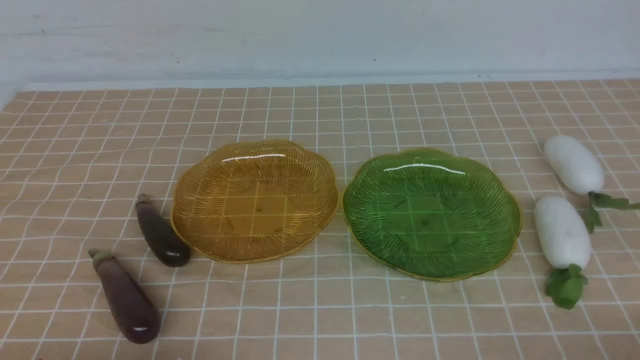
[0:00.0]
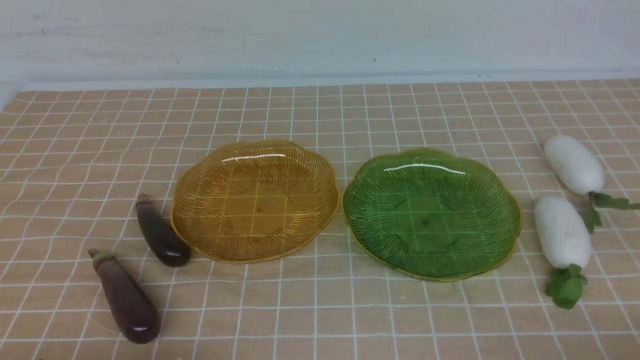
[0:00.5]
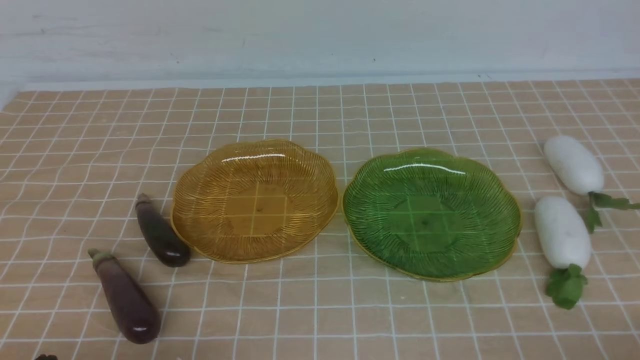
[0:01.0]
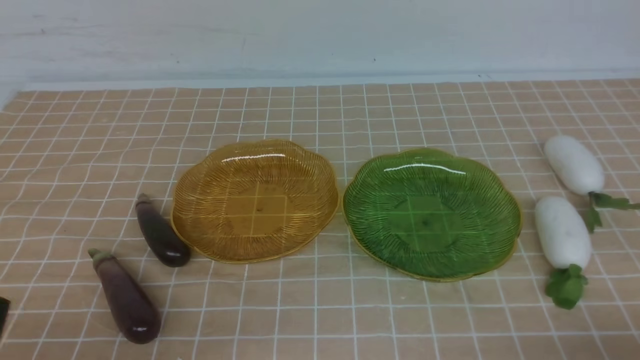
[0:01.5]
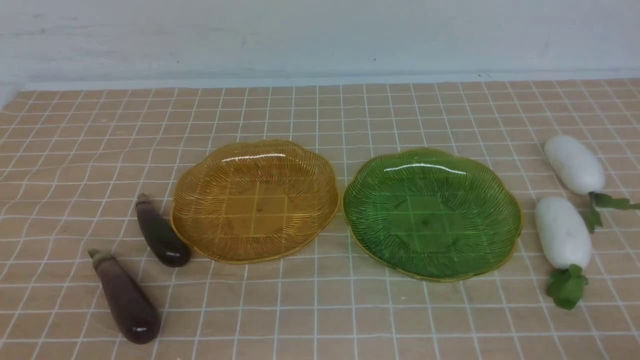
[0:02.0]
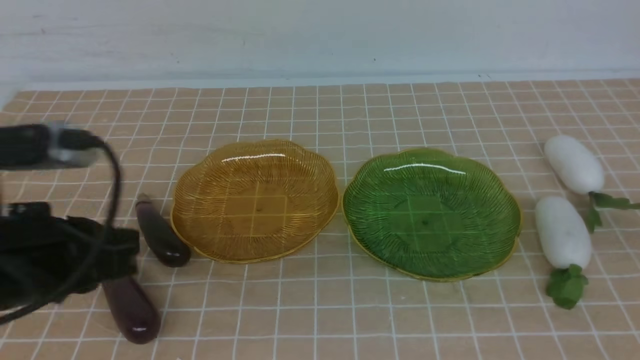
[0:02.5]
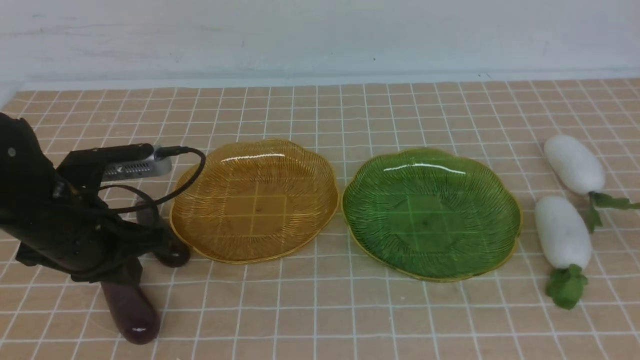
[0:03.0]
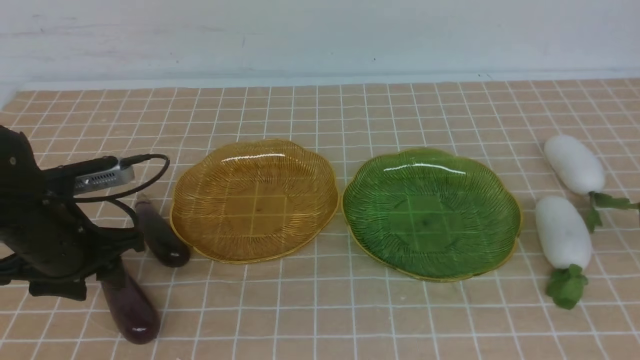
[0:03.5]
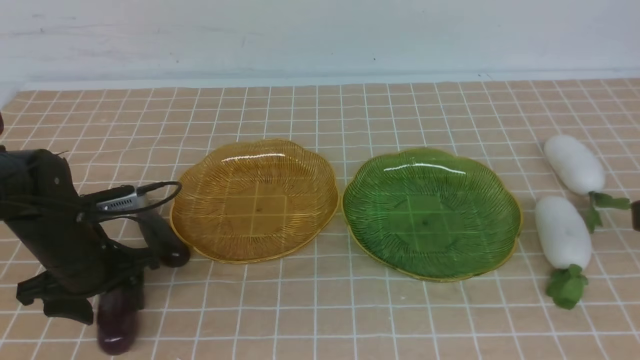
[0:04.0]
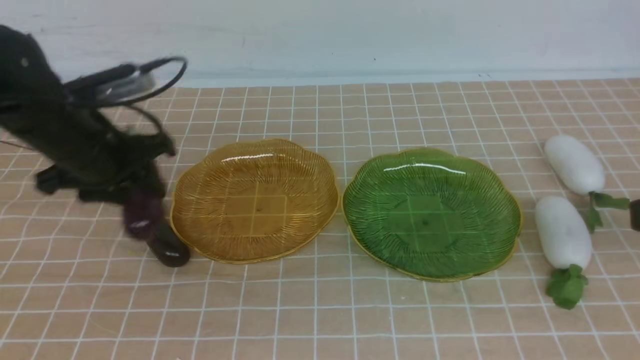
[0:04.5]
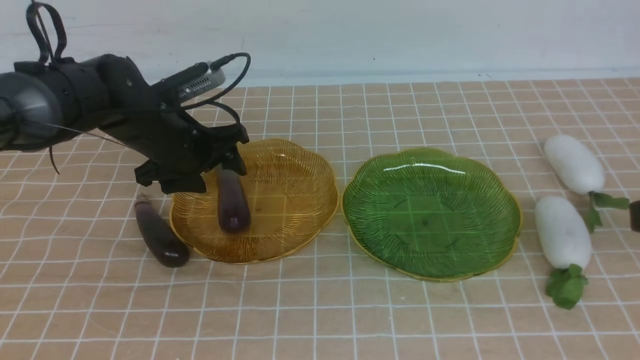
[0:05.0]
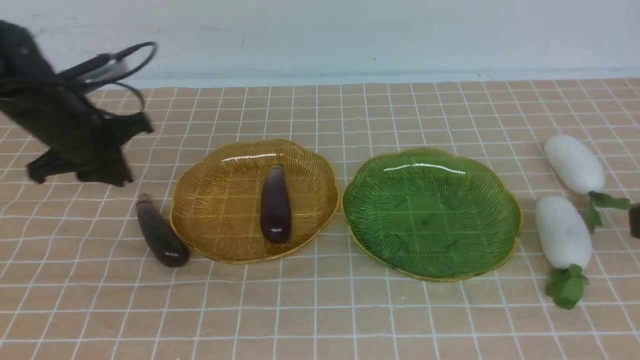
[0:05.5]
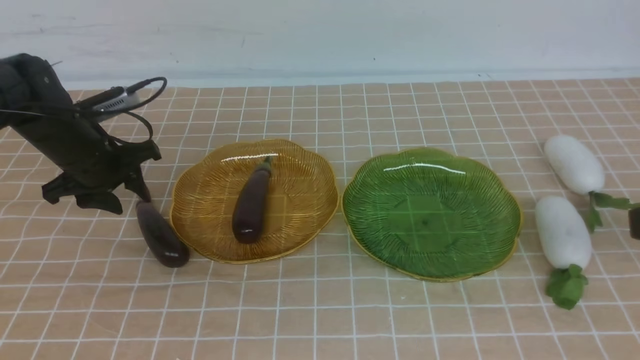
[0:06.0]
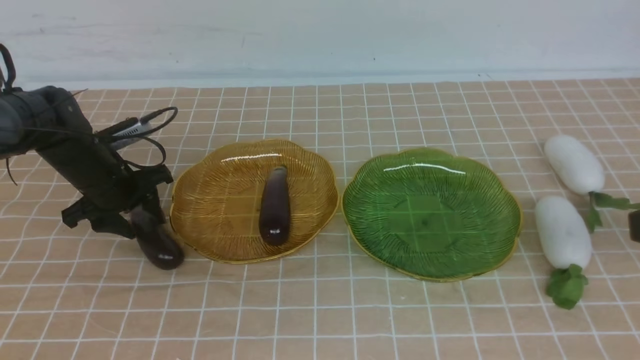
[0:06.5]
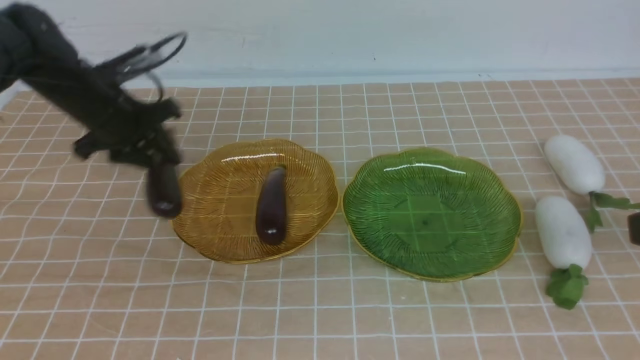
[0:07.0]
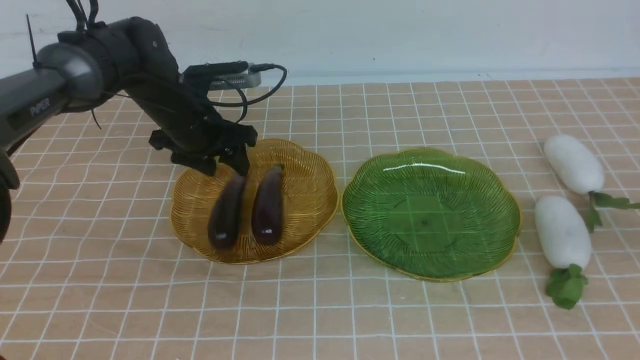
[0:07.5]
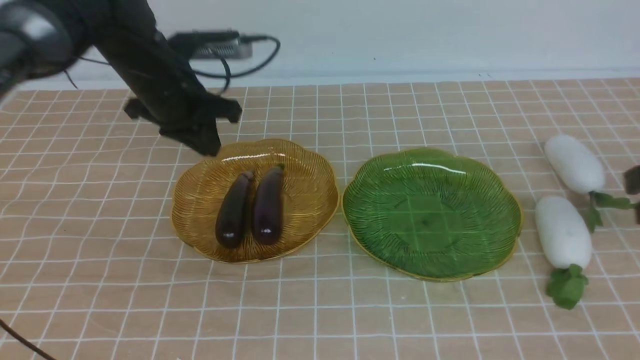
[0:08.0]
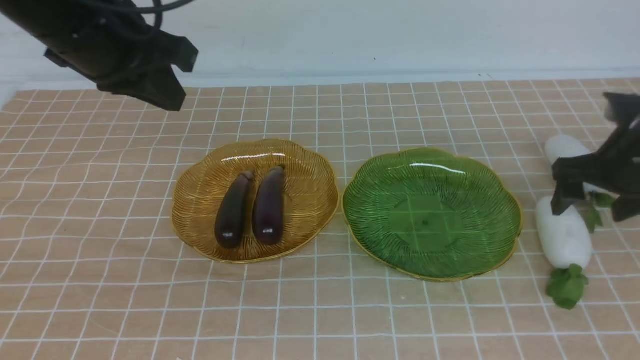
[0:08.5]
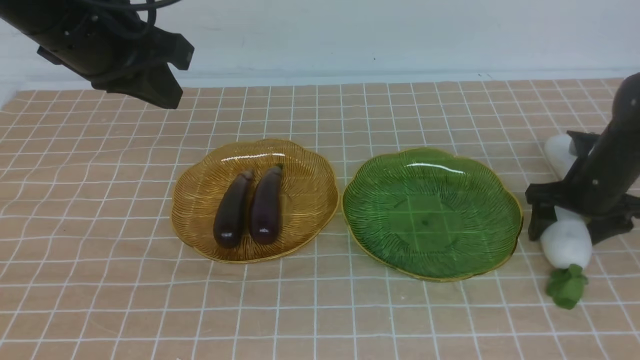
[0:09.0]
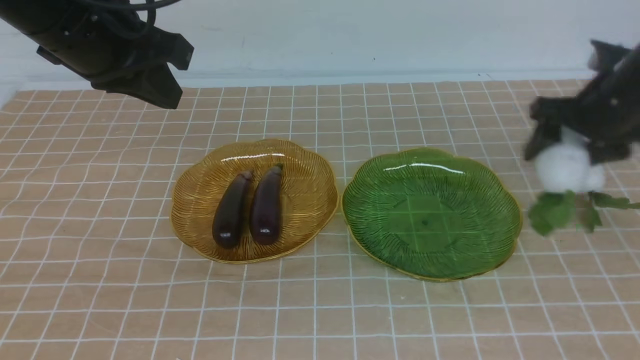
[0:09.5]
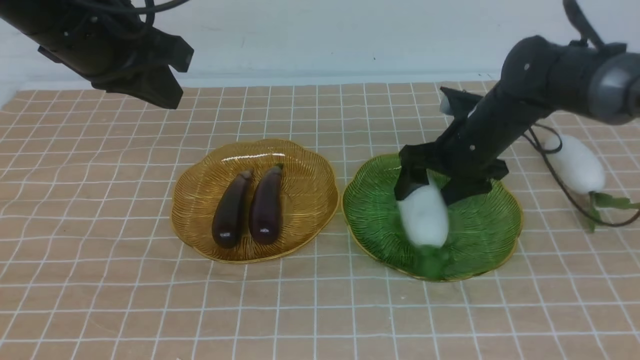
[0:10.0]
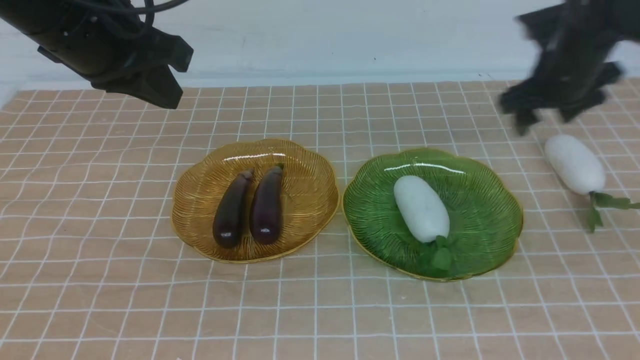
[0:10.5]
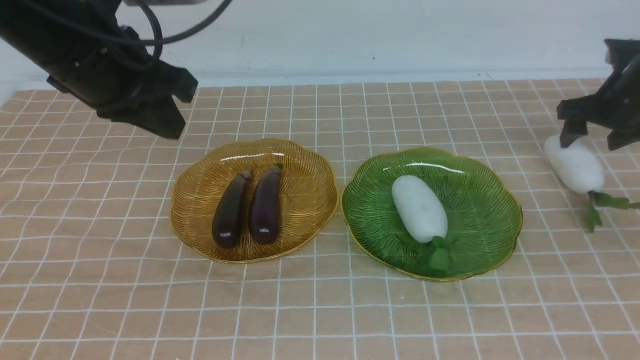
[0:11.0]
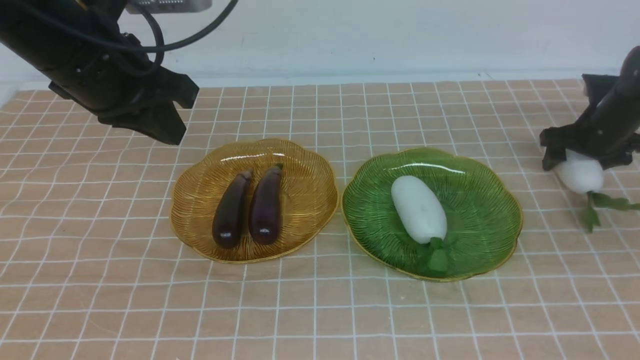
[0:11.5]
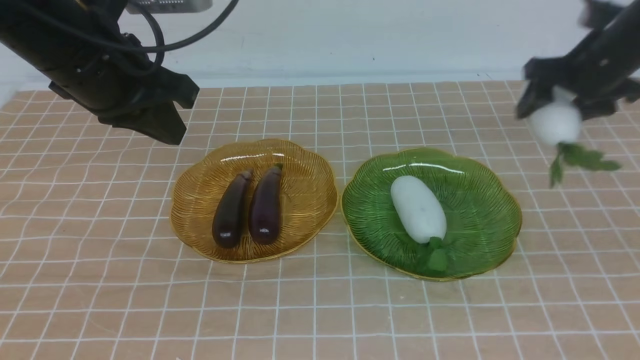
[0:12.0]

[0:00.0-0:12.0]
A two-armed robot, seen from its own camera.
Step, 0:00.0 to 0:07.5: use the left arm to grab an eggplant and put it into the left plate.
0:02.0 to 0:04.0: The left gripper is displaced forward by about 25 cm, and opens. Meanwhile the right gripper goes approximately 15 cm upward and forward.
0:04.0 to 0:06.0: The left gripper goes approximately 10 cm forward, and closes, then reopens.
0:06.0 to 0:08.0: The left gripper moves to the right and upward, roughly 15 cm, and closes its fingers. The right gripper heads forward and downward, covering roughly 10 cm.
0:08.0 to 0:10.0: The left gripper travels upward and backward by roughly 15 cm; the right gripper shifts approximately 25 cm forward, to the left and downward, and opens its fingers.
0:10.0 to 0:12.0: The right gripper shifts about 15 cm to the right and forward.

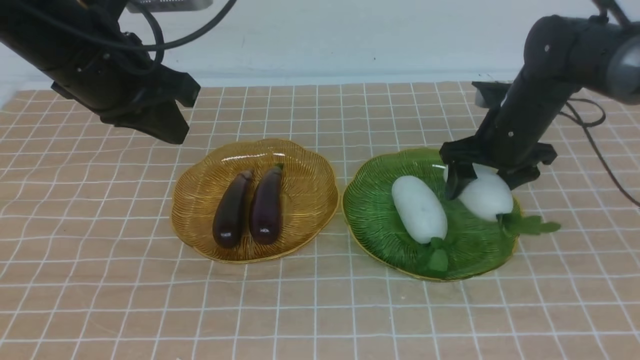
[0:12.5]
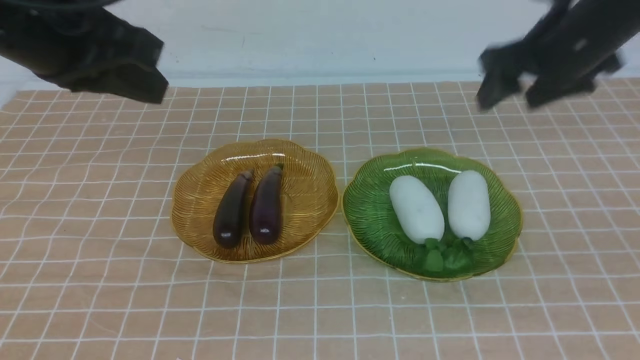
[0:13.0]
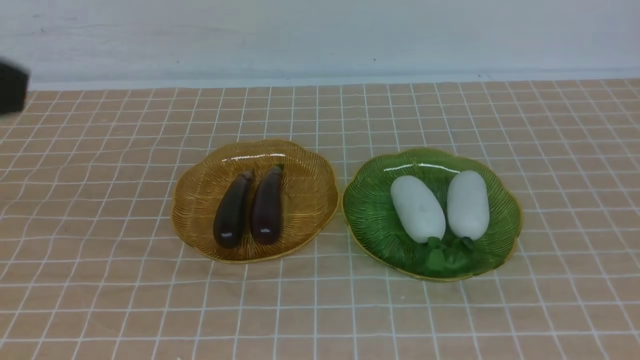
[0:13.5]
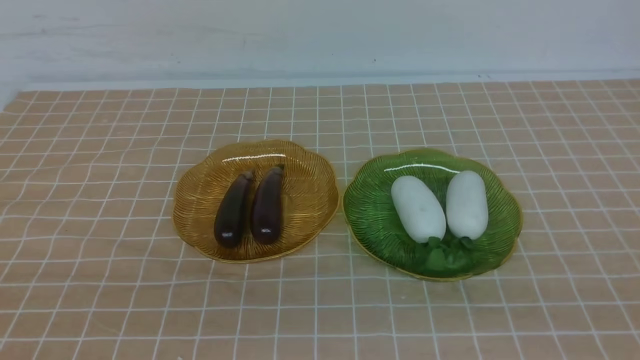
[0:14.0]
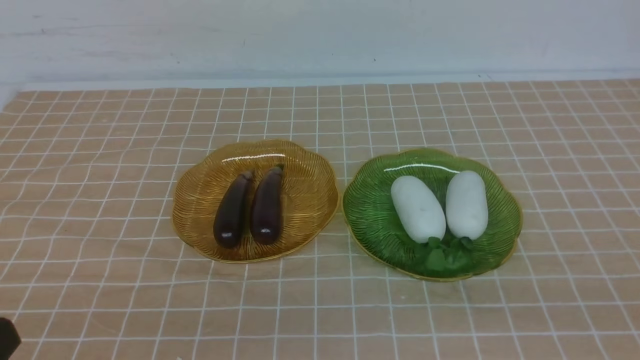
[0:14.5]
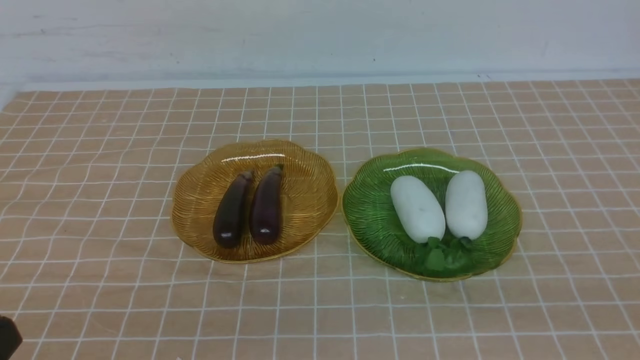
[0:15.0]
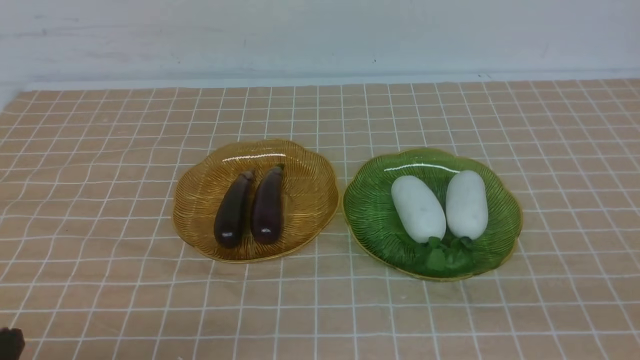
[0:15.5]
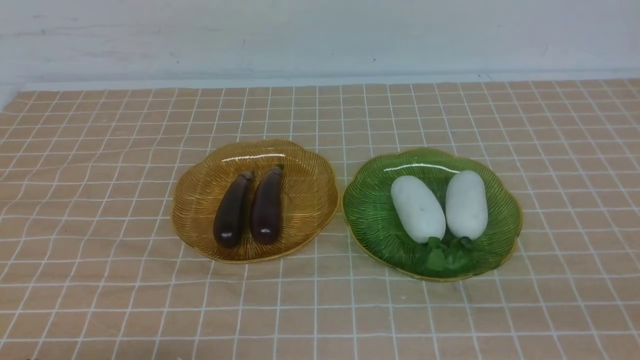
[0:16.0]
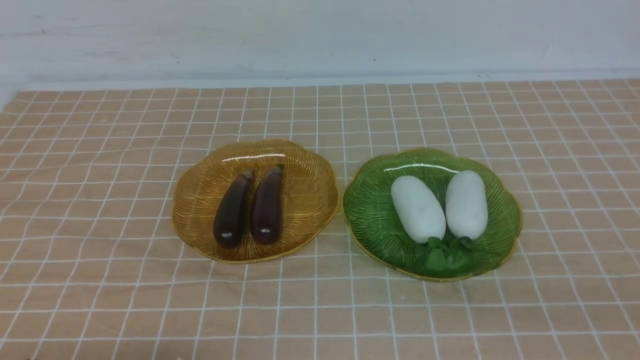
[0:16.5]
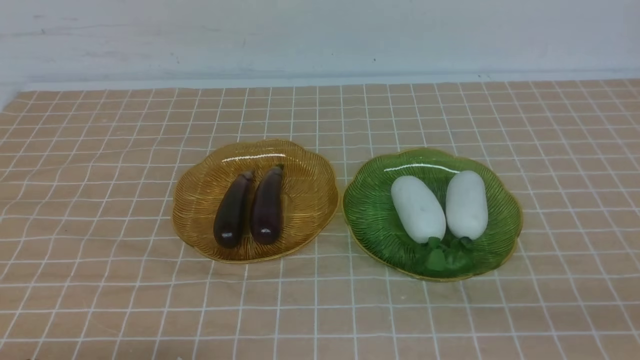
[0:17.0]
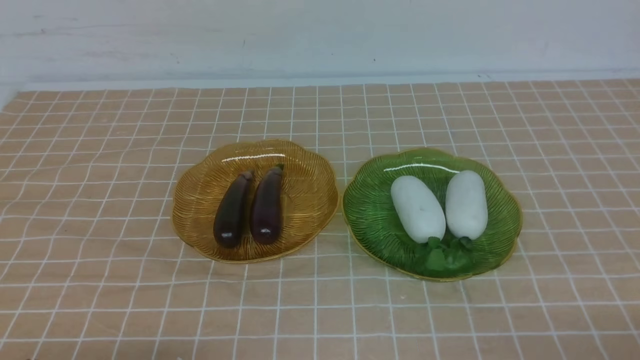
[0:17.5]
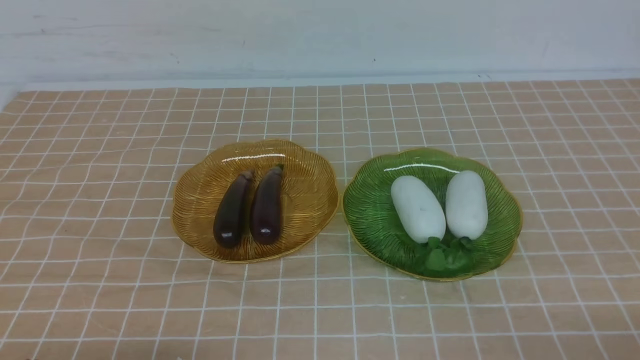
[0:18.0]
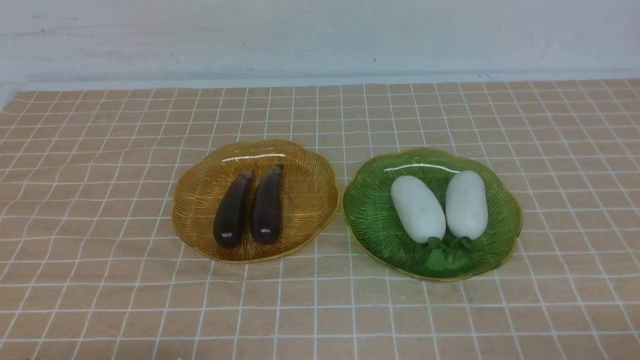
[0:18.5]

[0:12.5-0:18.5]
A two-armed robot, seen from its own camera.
0:12.5 to 0:14.5: The grippers both shift backward by some 35 cm. The right gripper closes its fingers.
